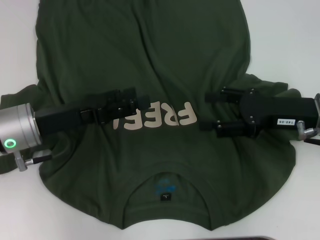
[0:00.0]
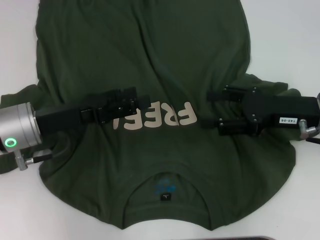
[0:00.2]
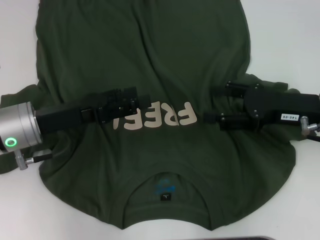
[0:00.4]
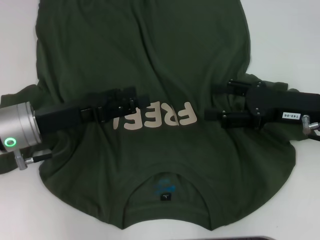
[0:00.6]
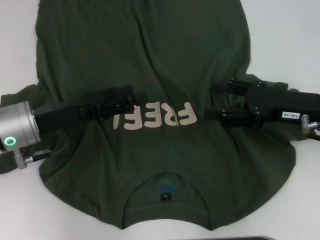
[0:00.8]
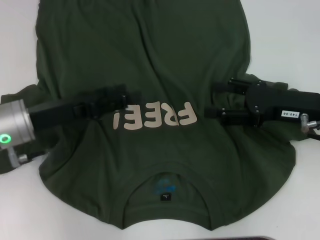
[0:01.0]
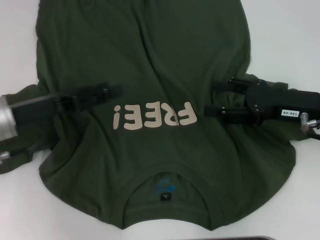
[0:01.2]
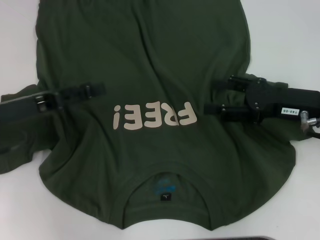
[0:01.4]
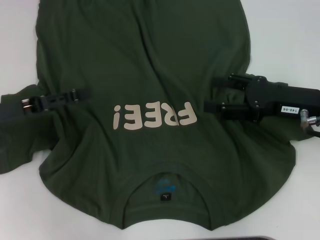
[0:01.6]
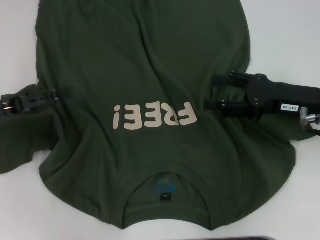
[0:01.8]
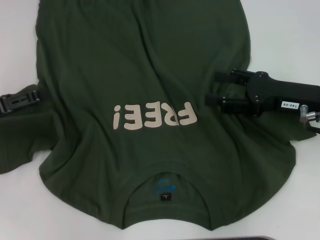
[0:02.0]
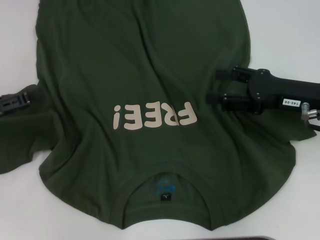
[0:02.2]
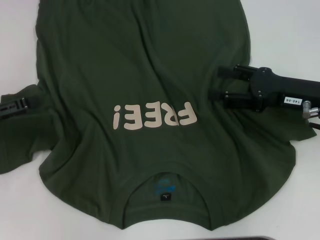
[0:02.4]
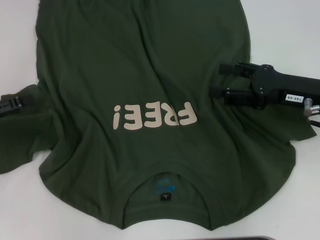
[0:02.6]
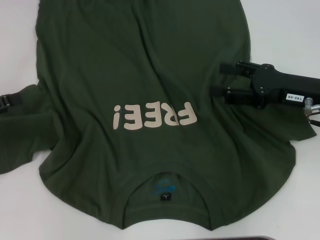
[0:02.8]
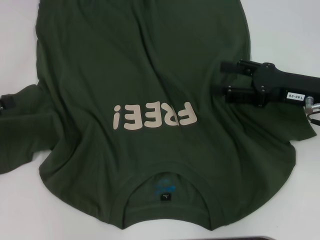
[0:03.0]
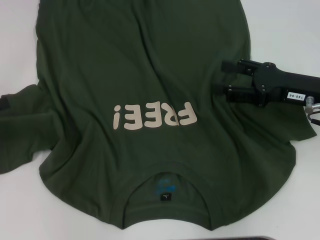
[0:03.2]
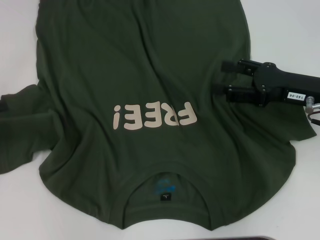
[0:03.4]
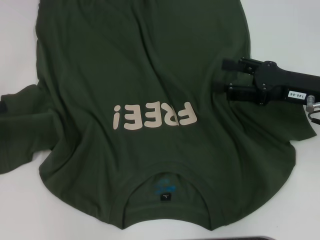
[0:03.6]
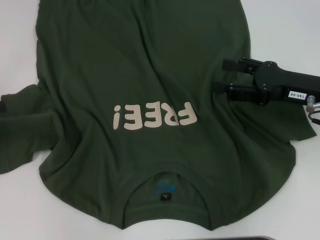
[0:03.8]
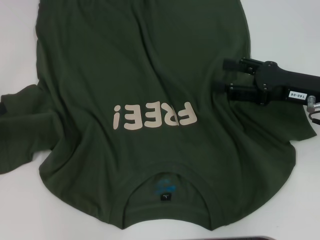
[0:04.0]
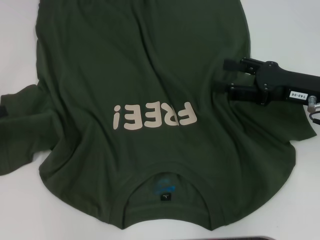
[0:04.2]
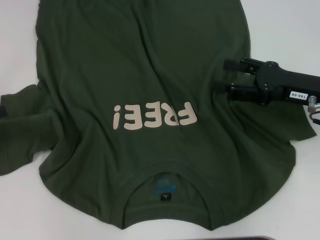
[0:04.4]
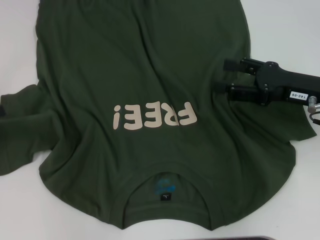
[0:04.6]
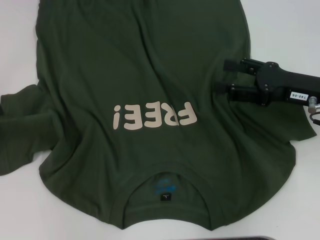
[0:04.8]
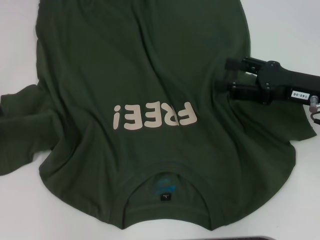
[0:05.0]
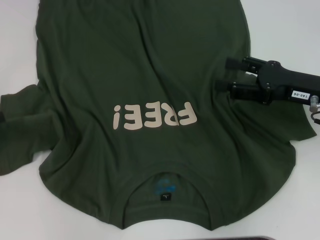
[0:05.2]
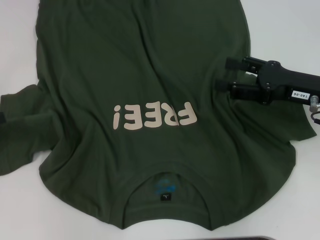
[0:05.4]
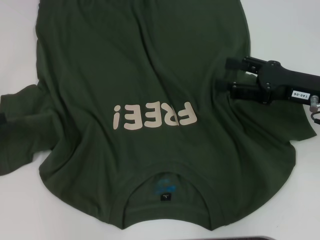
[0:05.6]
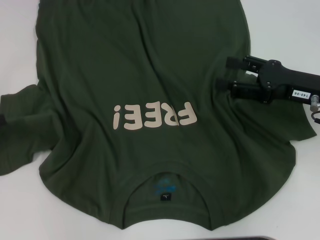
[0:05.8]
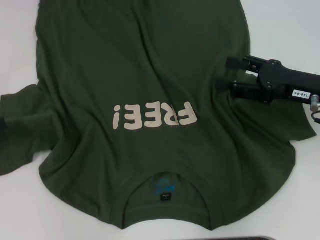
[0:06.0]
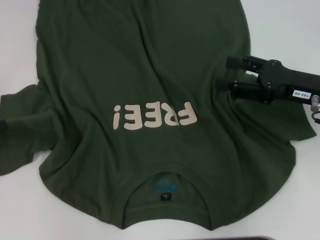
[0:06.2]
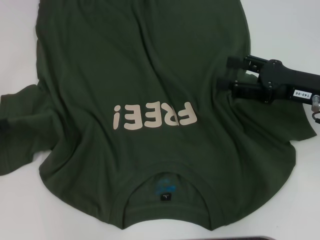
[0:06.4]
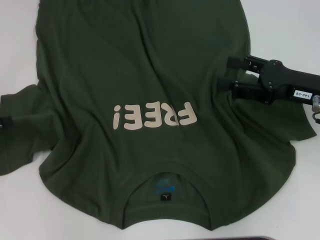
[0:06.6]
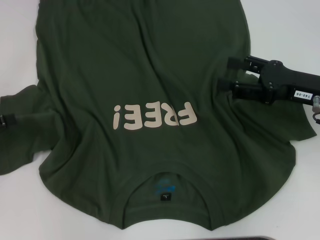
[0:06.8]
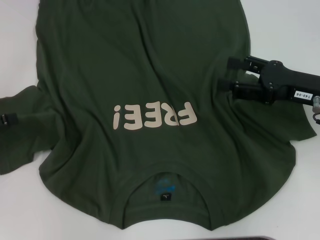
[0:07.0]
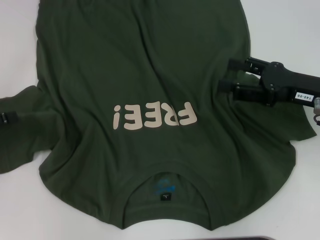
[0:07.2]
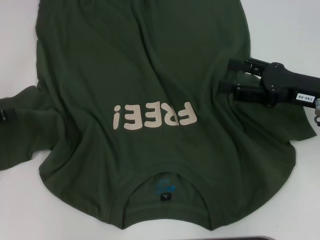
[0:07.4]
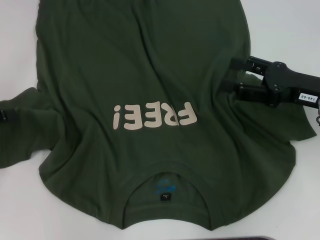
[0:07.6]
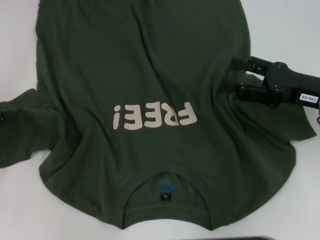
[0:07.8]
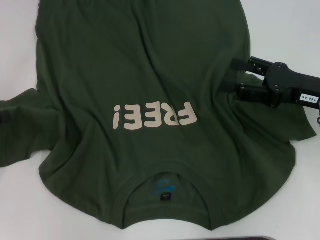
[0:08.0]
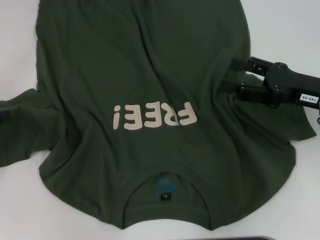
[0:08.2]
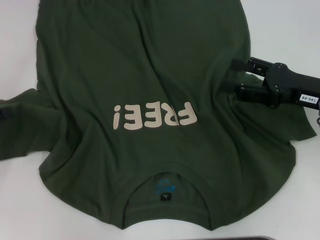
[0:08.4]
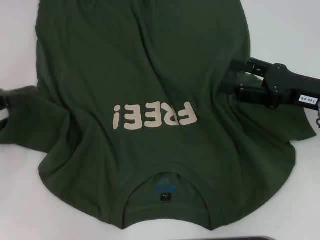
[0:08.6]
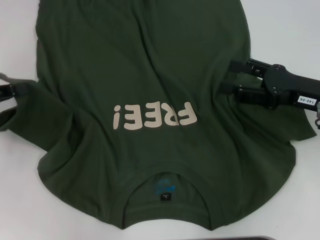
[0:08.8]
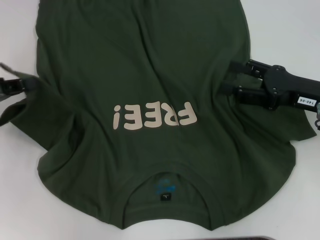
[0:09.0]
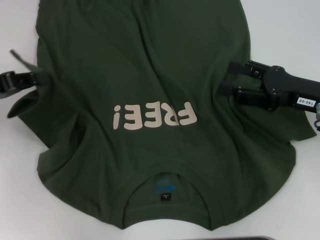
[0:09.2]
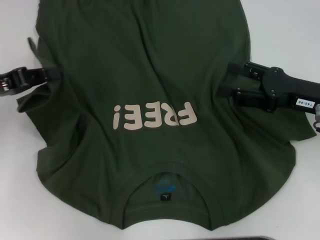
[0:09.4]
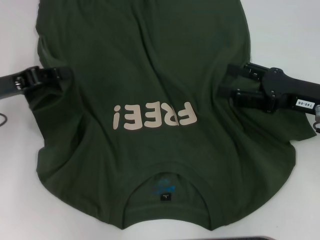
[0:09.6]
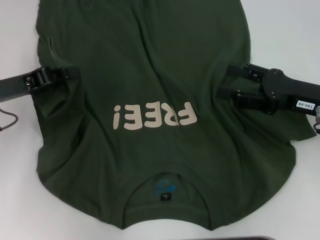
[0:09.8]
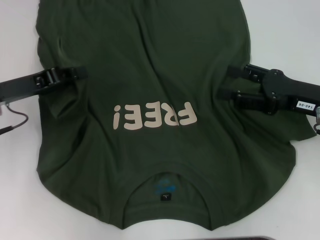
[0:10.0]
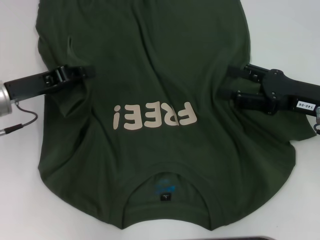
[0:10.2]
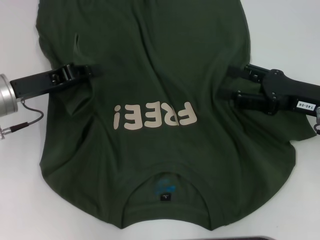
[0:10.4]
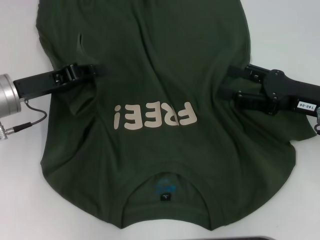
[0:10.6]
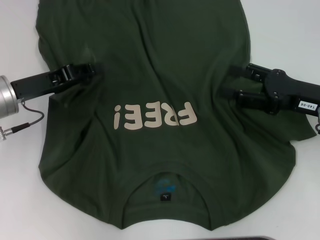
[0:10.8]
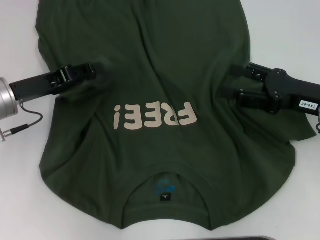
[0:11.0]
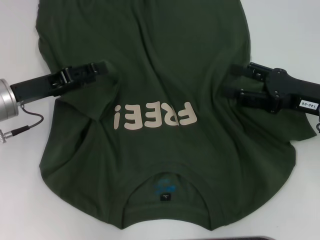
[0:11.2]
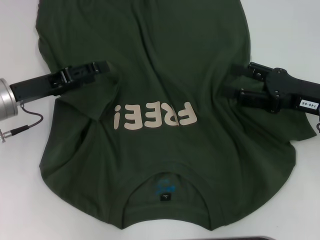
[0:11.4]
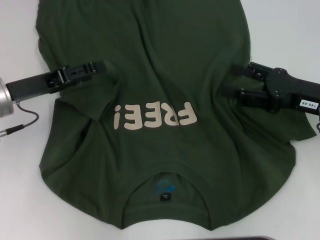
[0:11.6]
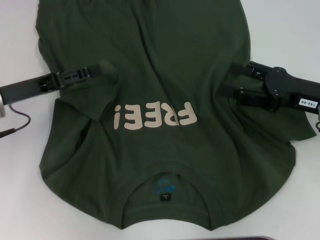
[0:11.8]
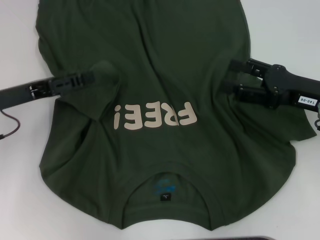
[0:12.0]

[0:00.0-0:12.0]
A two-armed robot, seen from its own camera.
0:00.0 to 0:01.6: The left gripper is displaced to the left by roughly 5 cm.
0:03.0 to 0:04.4: The grippers move only a little.
0:04.4 to 0:06.0: Neither gripper changes place.
0:06.0 to 0:07.6: The grippers make only small movements.
0:07.6 to 0:09.0: The left gripper shifts by some 5 cm, and closes up.
0:09.0 to 0:10.4: The left gripper travels to the right by approximately 10 cm.
0:10.4 to 0:12.0: The left gripper opens its fingers.

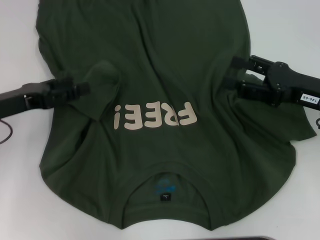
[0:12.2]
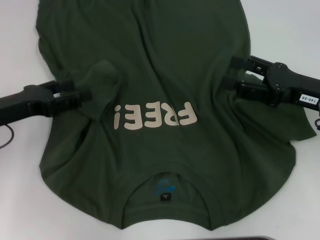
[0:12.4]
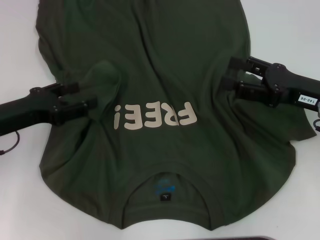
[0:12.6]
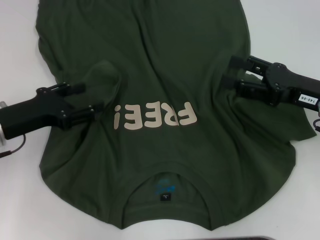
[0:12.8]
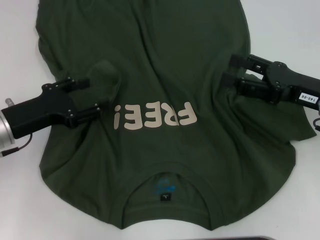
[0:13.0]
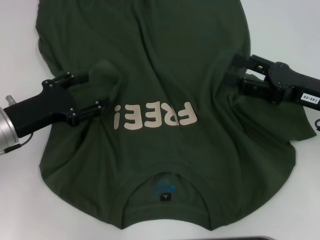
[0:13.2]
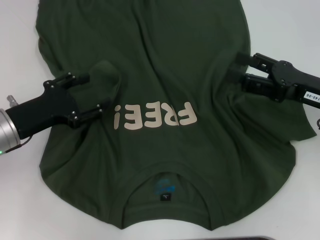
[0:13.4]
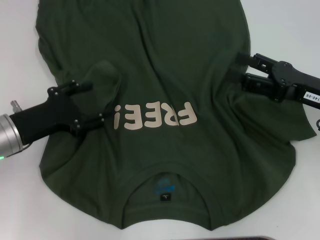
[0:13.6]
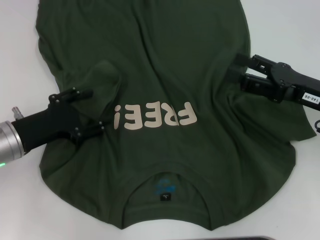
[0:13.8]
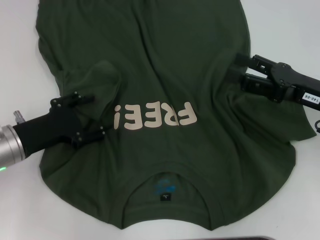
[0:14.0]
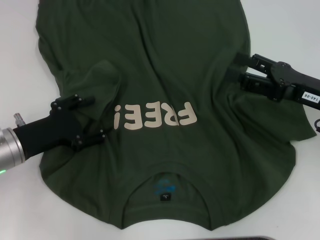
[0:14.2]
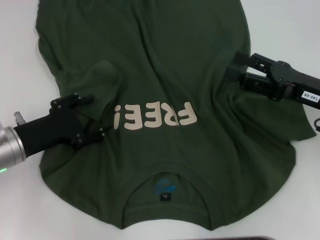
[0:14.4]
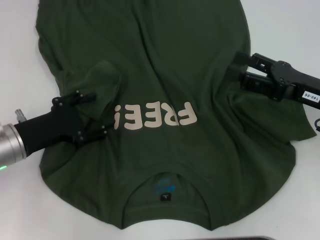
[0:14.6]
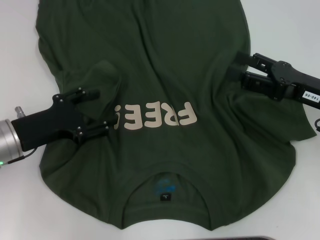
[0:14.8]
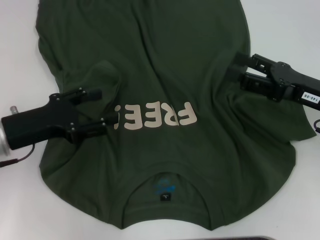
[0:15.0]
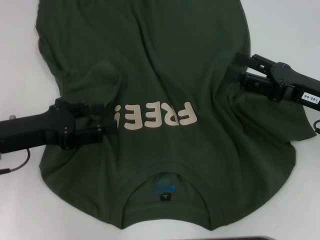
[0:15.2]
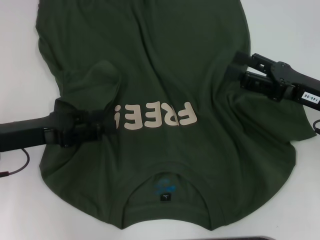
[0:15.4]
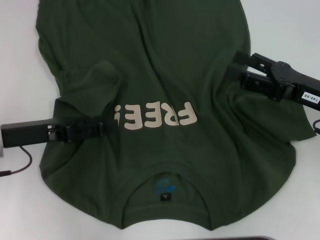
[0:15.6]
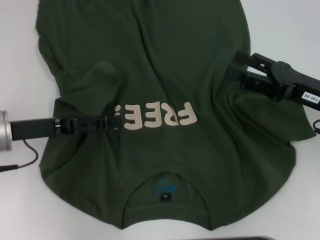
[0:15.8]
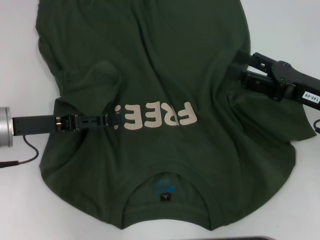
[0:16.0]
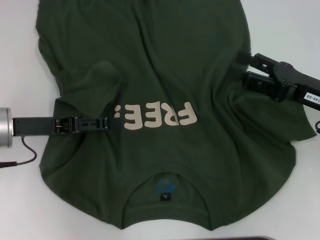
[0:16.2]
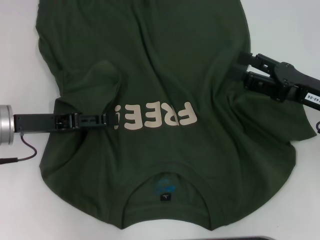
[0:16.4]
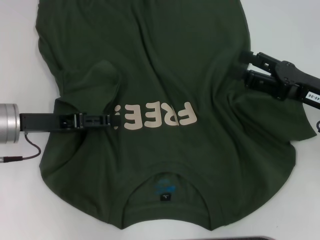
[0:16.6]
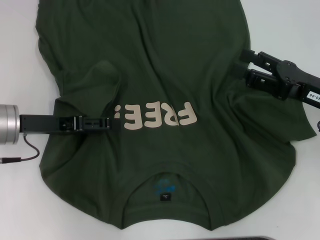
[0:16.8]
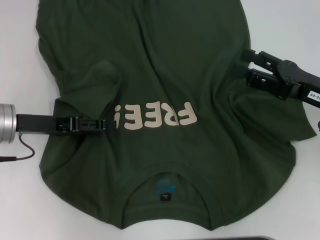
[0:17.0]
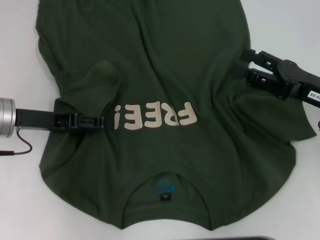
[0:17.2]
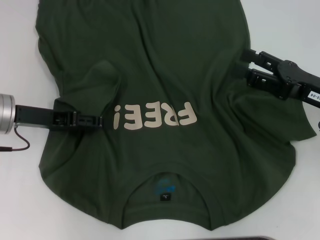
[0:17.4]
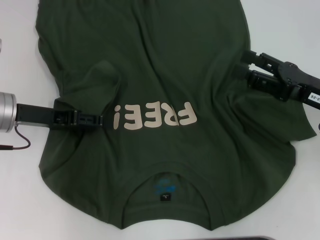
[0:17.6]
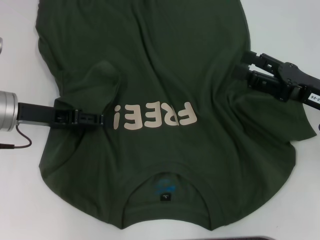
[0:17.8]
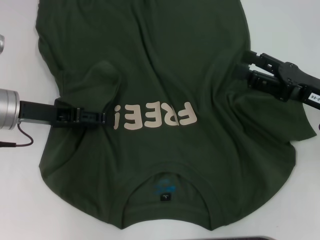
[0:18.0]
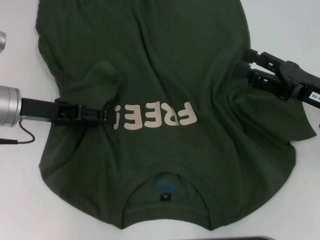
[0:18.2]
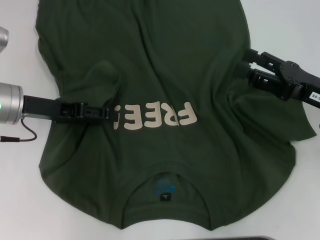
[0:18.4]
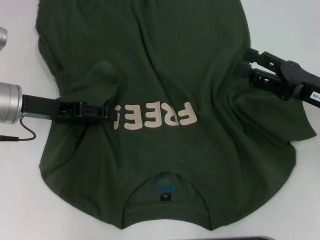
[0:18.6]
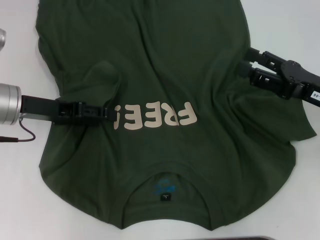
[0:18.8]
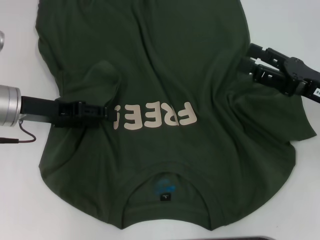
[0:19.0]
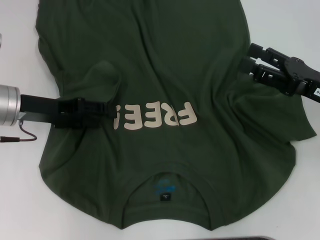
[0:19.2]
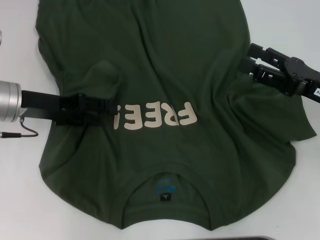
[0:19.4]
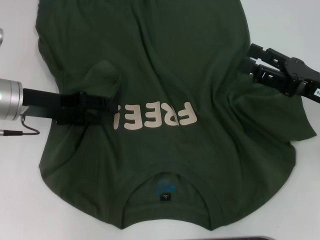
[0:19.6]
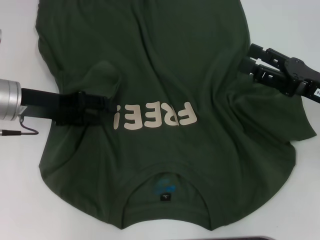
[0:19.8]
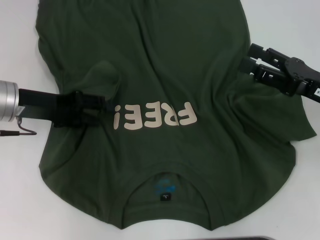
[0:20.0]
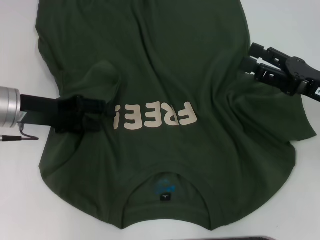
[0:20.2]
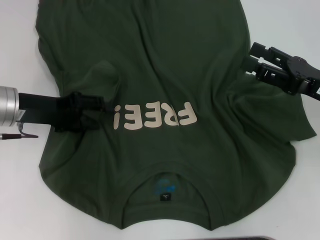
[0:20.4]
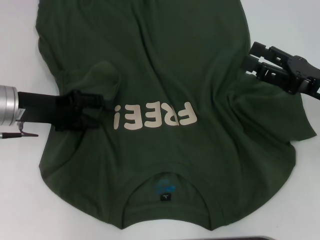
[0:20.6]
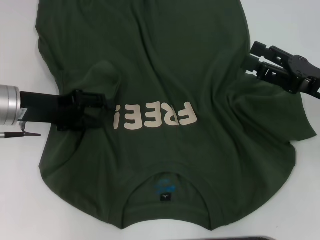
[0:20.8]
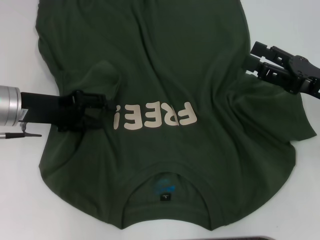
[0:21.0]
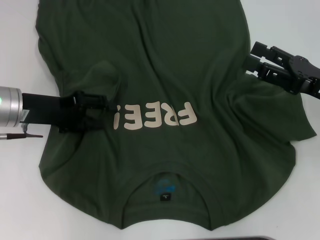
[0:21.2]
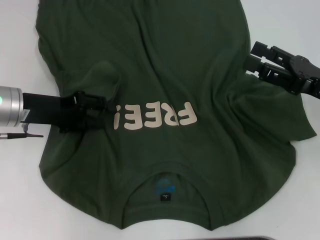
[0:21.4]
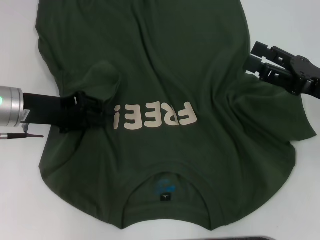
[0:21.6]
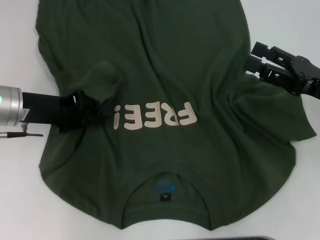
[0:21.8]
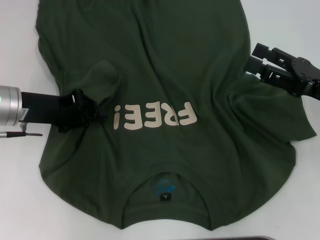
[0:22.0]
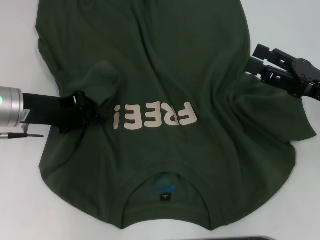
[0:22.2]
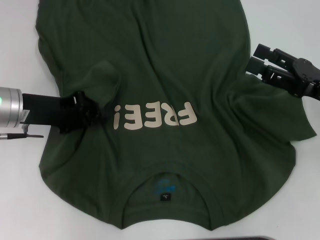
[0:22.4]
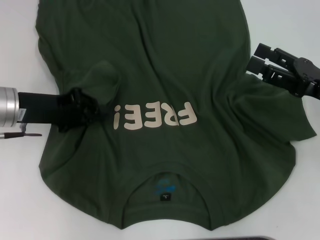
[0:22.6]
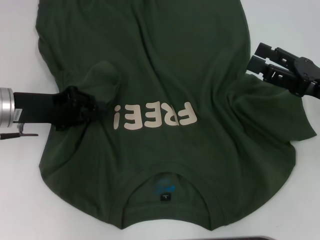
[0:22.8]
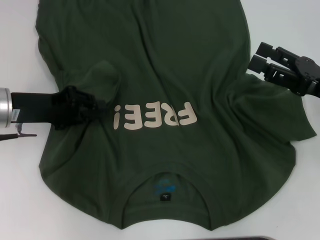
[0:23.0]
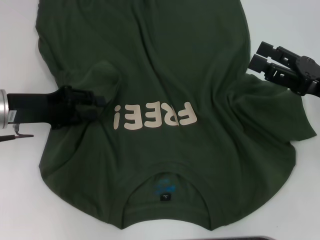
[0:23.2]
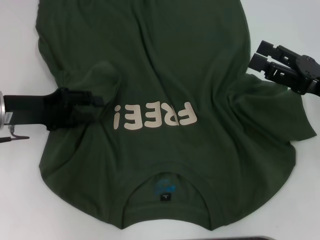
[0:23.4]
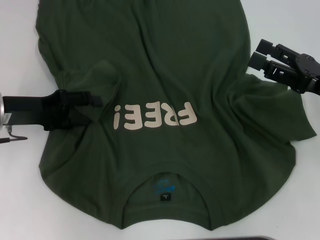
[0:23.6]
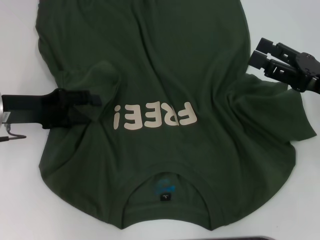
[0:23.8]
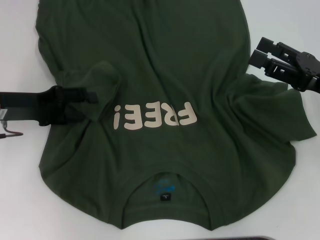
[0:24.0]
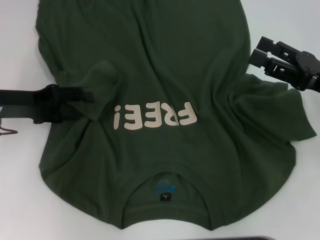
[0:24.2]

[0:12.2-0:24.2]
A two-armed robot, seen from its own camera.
0:12.2 to 0:13.8: The left gripper ends up approximately 5 cm from where it was.
0:16.6 to 0:19.8: The grippers make only small movements.
0:19.8 to 0:21.2: The grippers stay close to where they were, moving slightly.
0:21.2 to 0:22.6: The left gripper closes its fingers.
0:22.6 to 0:24.2: The left gripper opens.
